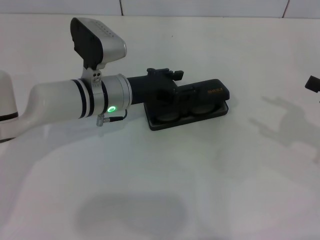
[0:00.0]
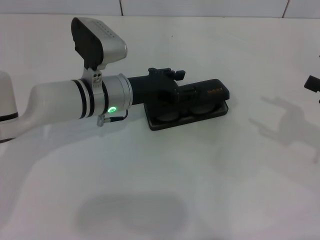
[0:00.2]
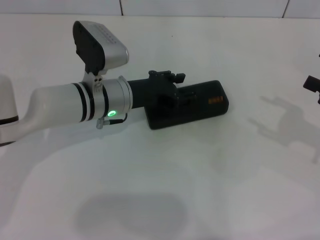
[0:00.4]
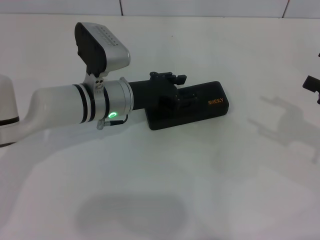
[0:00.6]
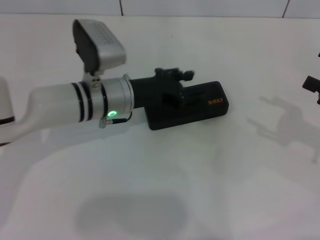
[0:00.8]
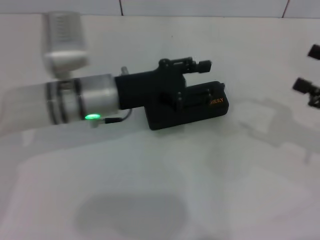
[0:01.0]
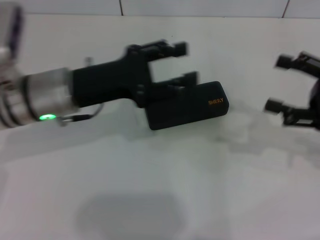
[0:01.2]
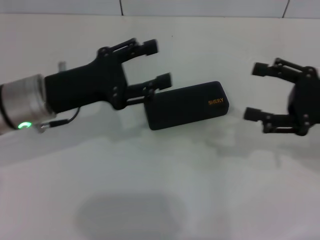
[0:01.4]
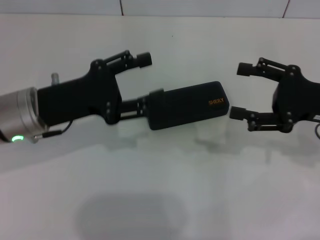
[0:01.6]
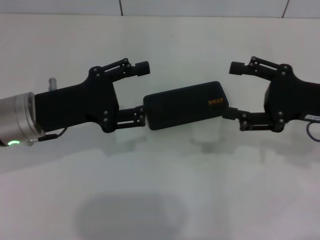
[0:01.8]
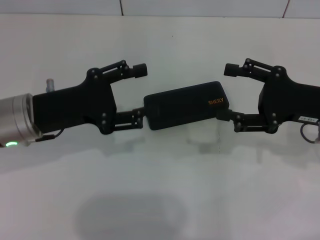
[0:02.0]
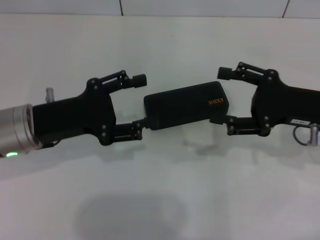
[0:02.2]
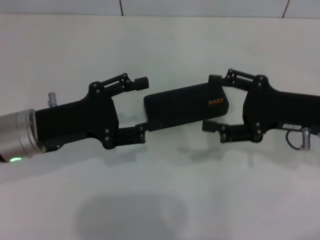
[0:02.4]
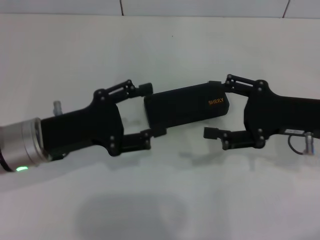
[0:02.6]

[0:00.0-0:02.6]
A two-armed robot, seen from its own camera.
0:00.0 to 0:01.2: The left gripper goes roughly 10 cm to the left and upward.
0:01.2 to 0:02.6: The left gripper shifts by roughly 5 cm. The right gripper shifts approximately 5 cm to the left.
